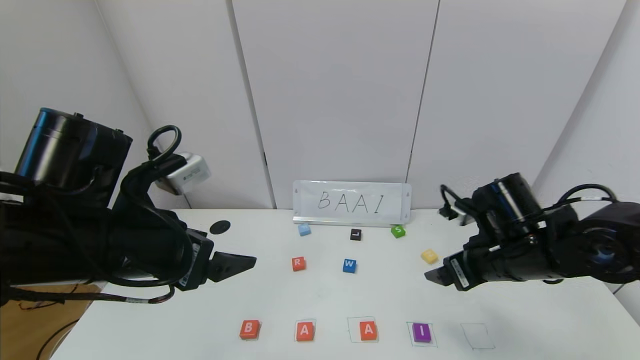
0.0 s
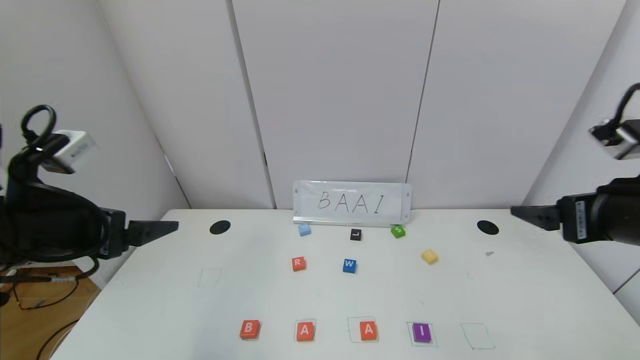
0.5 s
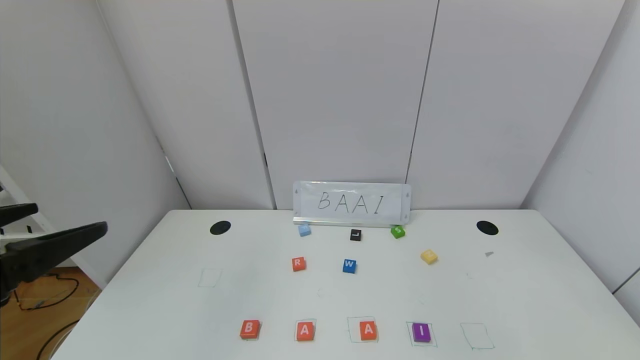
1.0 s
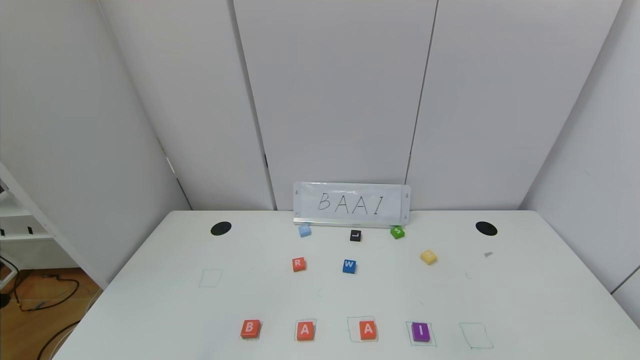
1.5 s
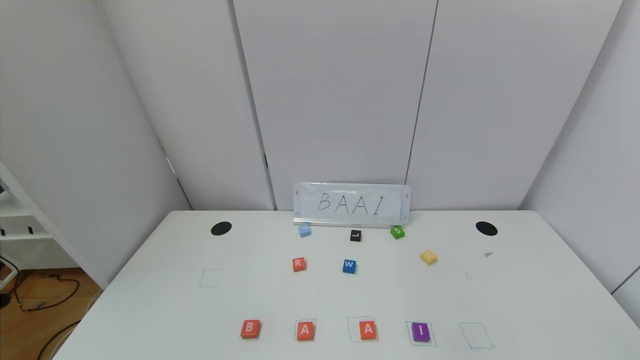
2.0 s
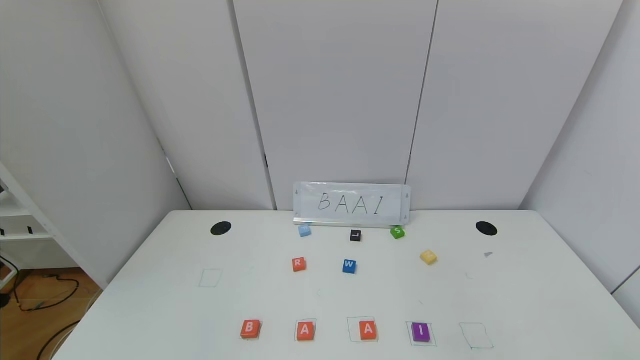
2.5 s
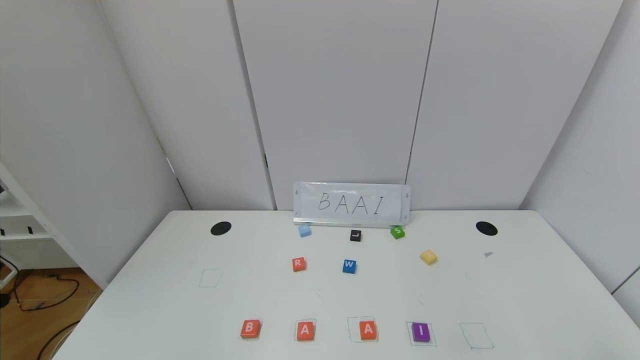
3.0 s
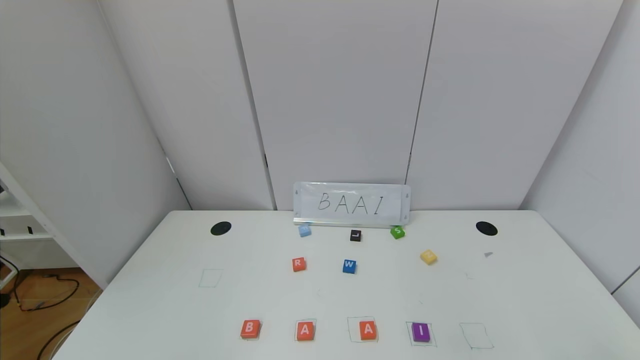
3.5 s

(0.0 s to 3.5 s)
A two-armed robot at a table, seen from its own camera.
Task of the whole recording: use the gripper to find blocks with the letters b, a, a, and i on the table and arrange them into BAAI, then find r and N and turn the arranged baai into brian.
0.0 s - 2.0 s: Both grippers move backward, roughly 30 cm.
